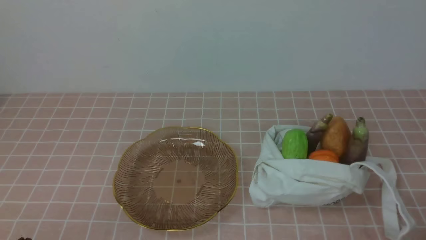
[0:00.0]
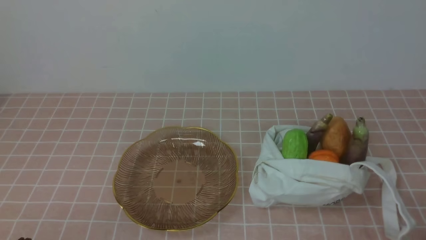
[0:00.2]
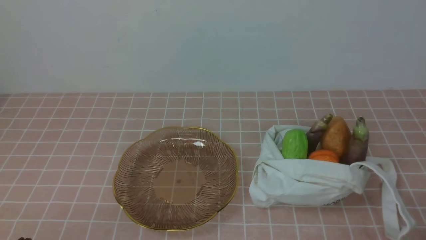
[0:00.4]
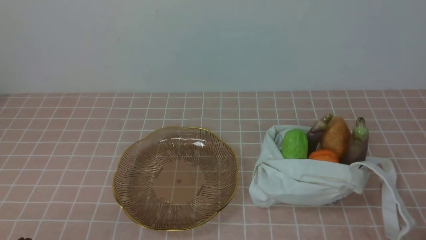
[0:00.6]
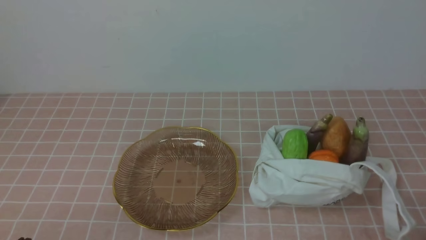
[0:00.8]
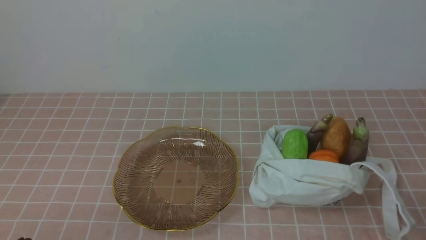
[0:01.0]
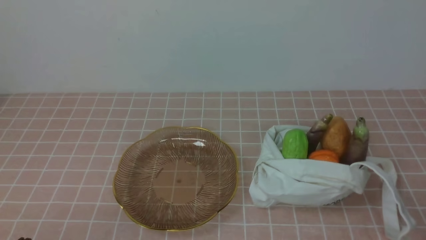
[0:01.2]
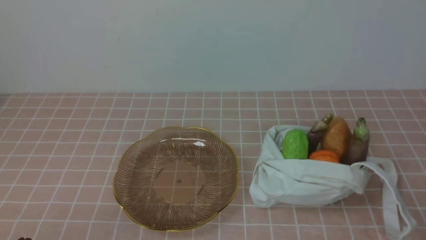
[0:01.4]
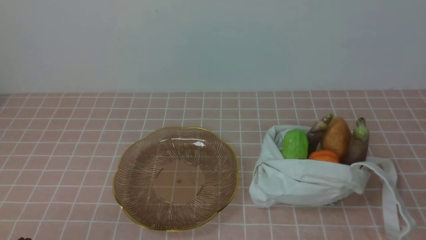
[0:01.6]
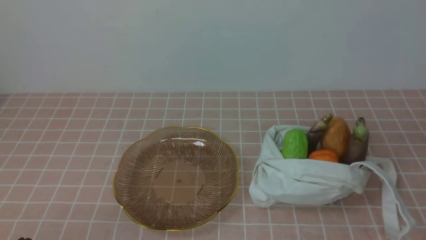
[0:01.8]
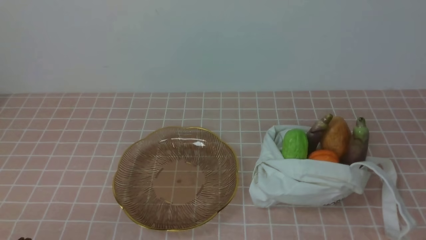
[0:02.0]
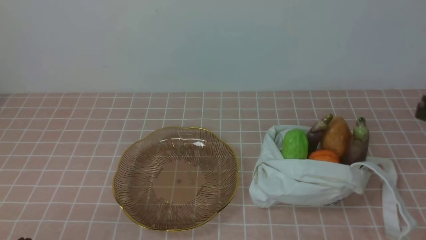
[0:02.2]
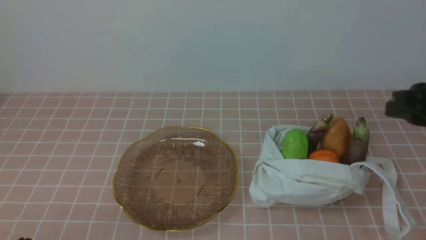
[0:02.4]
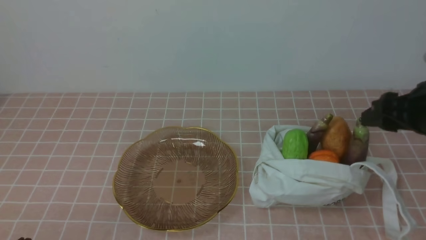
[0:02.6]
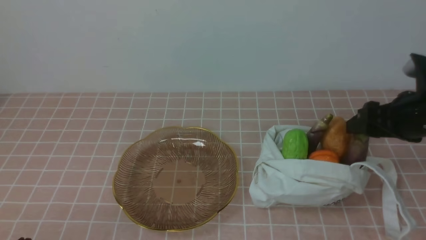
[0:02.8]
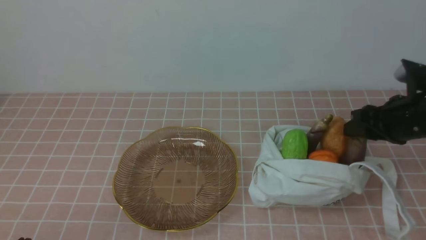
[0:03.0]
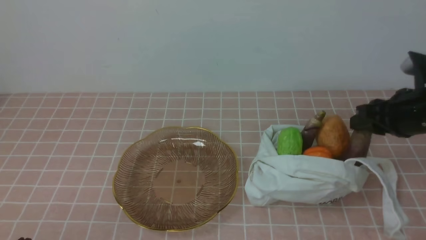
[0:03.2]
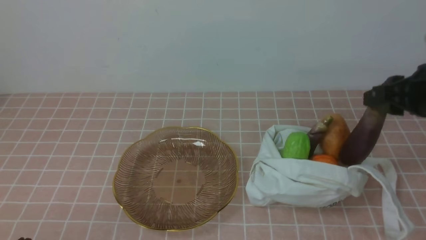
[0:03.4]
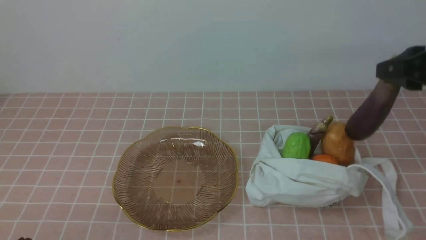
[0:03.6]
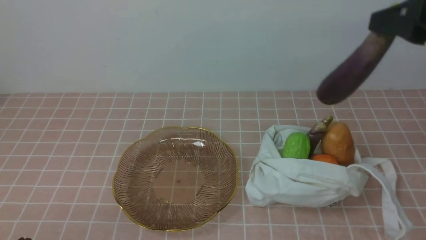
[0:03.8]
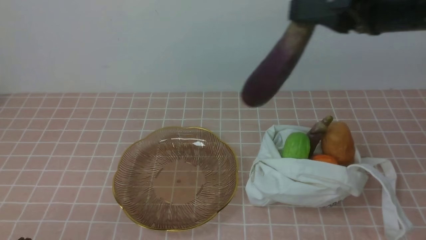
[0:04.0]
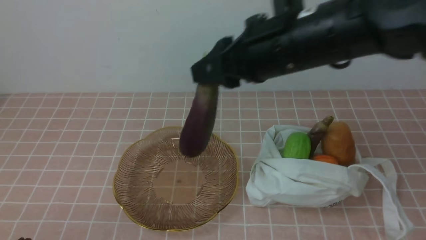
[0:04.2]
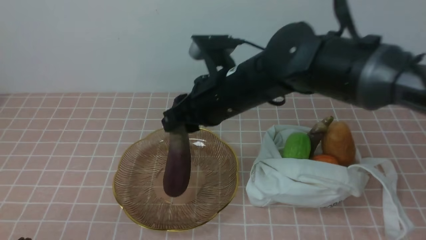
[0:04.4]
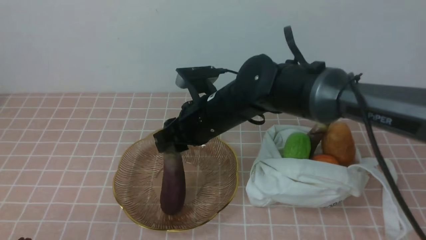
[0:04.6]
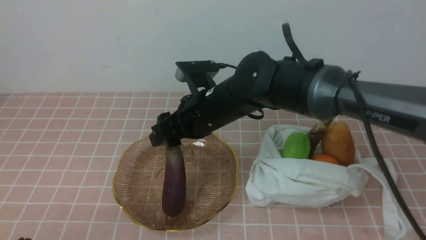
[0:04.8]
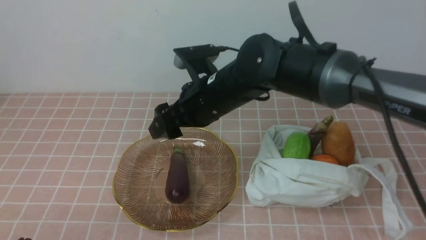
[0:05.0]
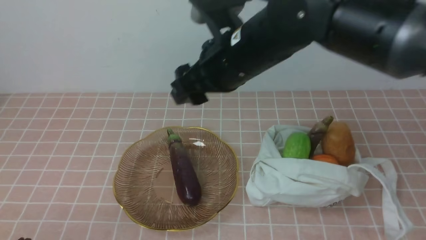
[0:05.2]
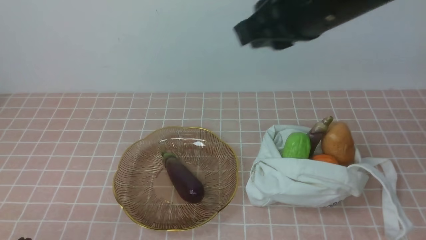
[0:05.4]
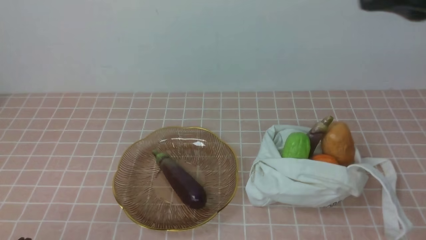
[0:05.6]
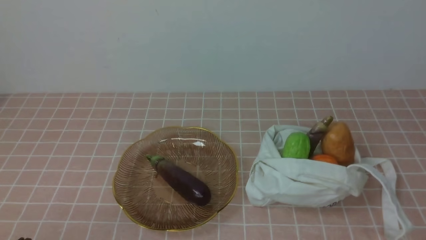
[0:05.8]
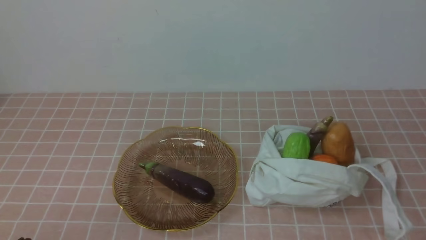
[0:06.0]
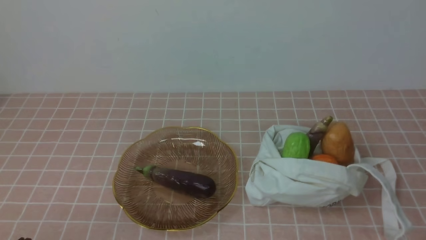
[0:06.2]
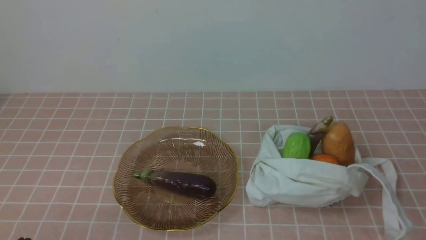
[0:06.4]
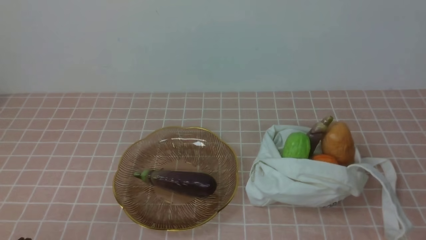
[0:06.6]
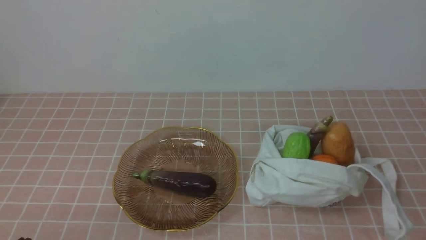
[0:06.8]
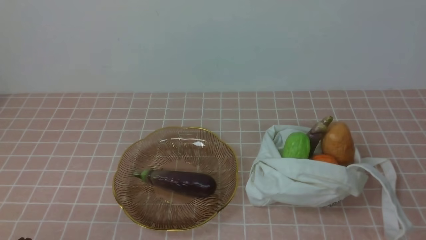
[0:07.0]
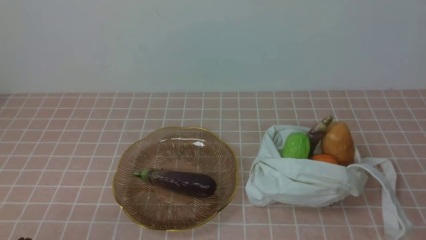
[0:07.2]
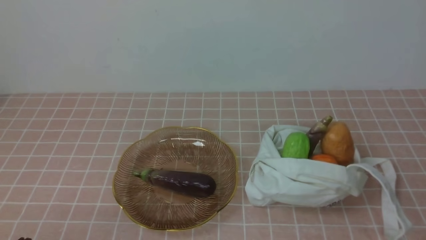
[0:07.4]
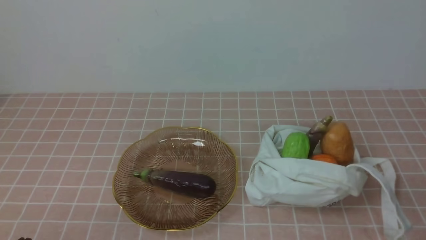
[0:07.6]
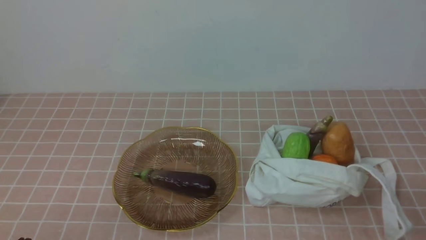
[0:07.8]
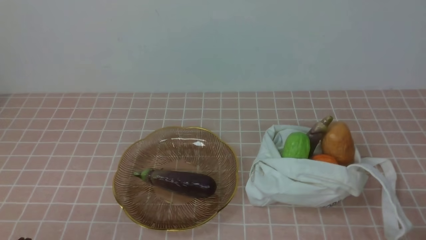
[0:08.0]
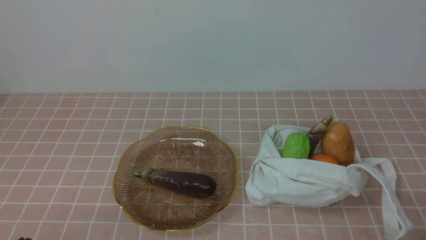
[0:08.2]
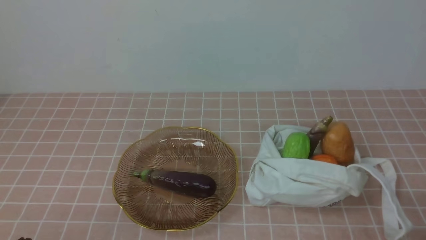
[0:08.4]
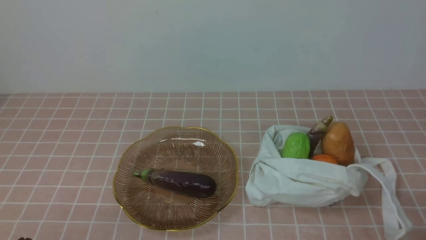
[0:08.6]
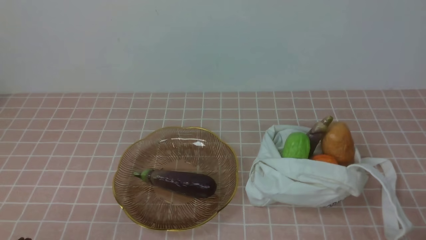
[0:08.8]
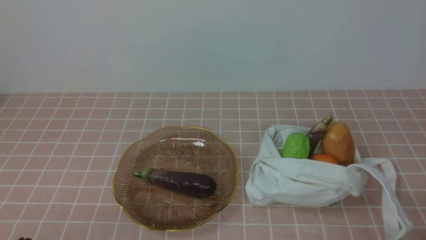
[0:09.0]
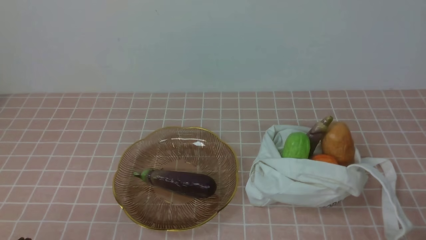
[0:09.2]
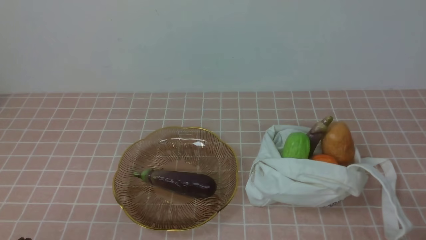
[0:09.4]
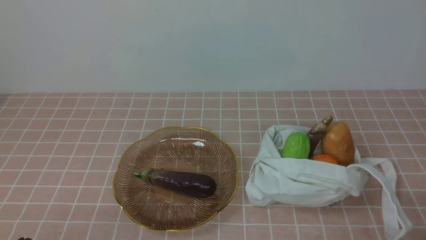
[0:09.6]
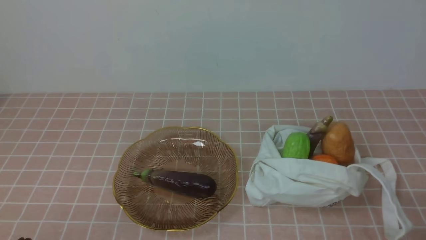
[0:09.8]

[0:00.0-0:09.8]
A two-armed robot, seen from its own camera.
Task of the whole recording: take vegetables from bag on pink coffee tablecloth place on plate.
Step, 0:00.0 to 0:03.0: Grasp the eggplant with right gripper.
Step, 0:03.2 to 0:05.0: Place the eggplant on the plate with right gripper.
0:01.4 to 0:02.8: The right gripper shifts approximately 25 cm forward, and opens up.
0:02.8 to 0:04.2: The right gripper shifts approximately 25 cm to the left and upward, and closes its fingers.
0:04.2 to 0:05.6: The right gripper shifts about 20 cm backward, to the right and upward, and closes up.
0:05.6 to 0:07.0: The right gripper shifts some 25 cm downward, backward and to the right.
0:08.4 to 0:09.8: Both grippers stay about where they are.
